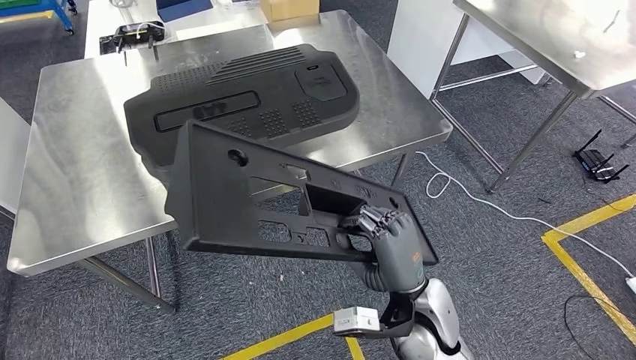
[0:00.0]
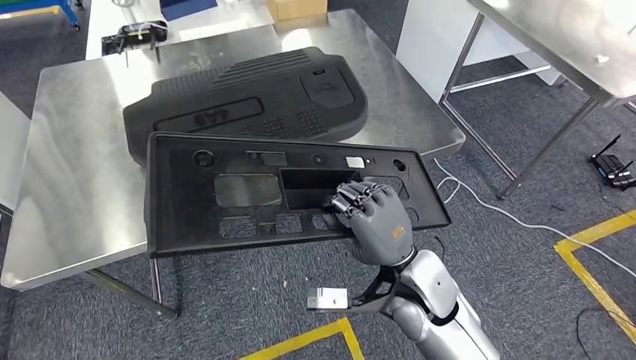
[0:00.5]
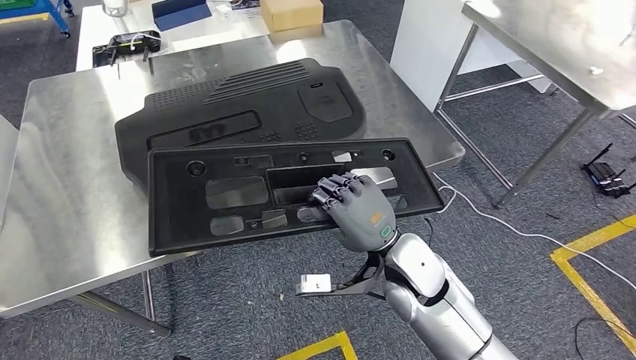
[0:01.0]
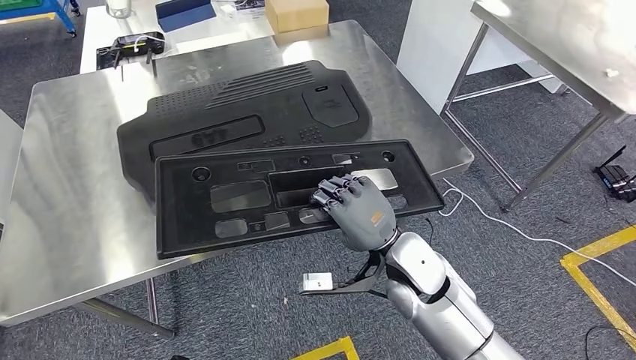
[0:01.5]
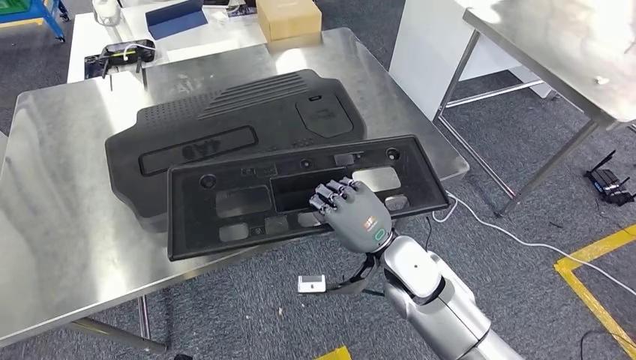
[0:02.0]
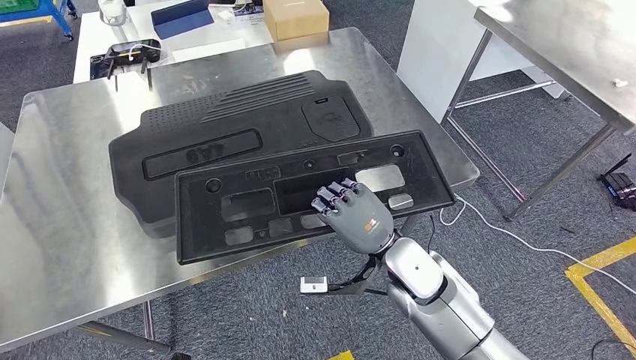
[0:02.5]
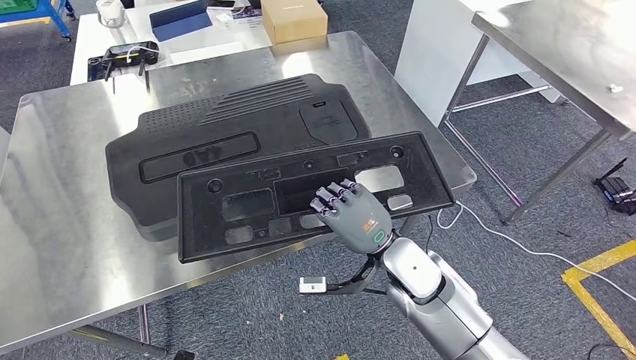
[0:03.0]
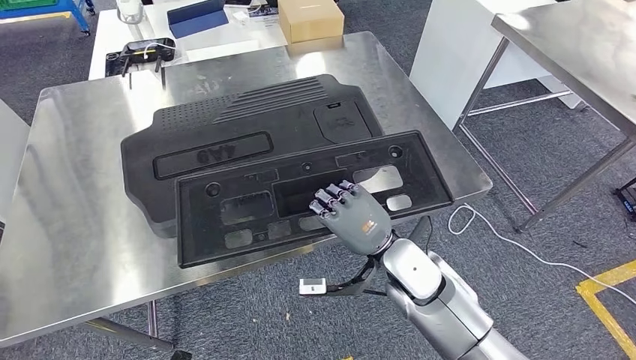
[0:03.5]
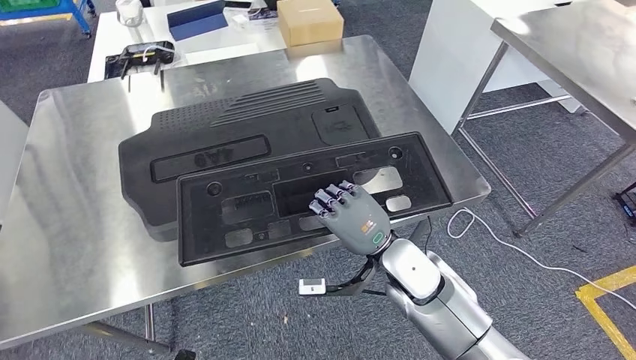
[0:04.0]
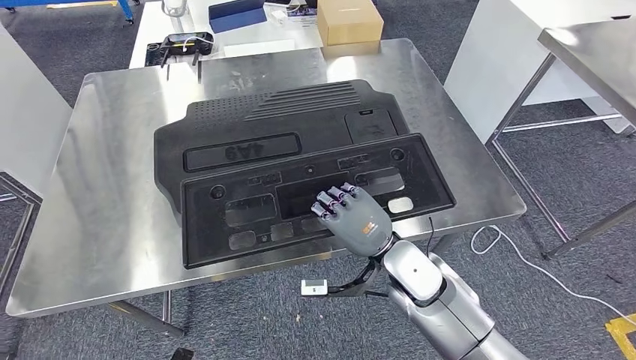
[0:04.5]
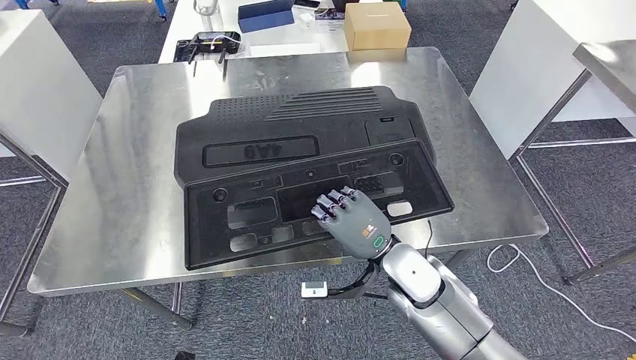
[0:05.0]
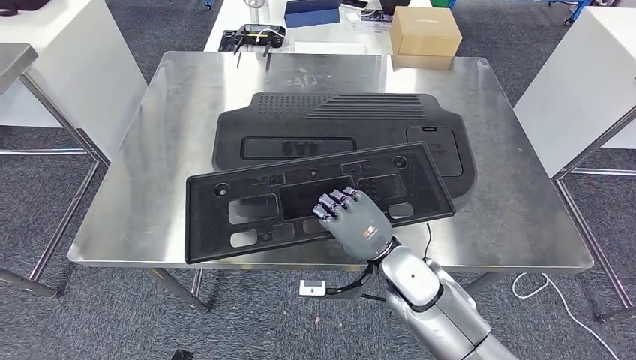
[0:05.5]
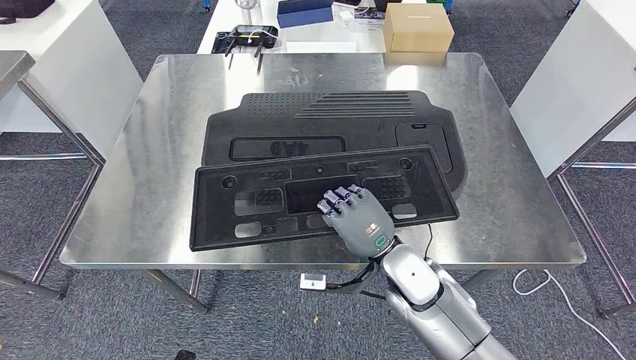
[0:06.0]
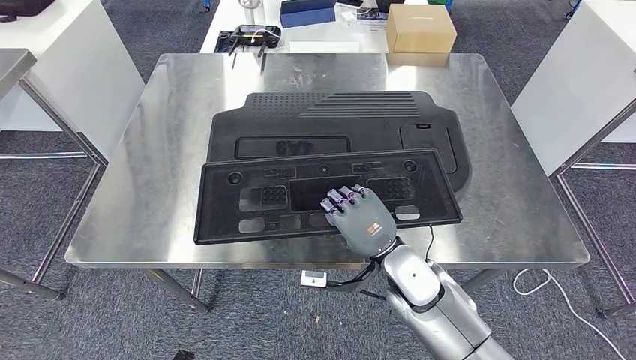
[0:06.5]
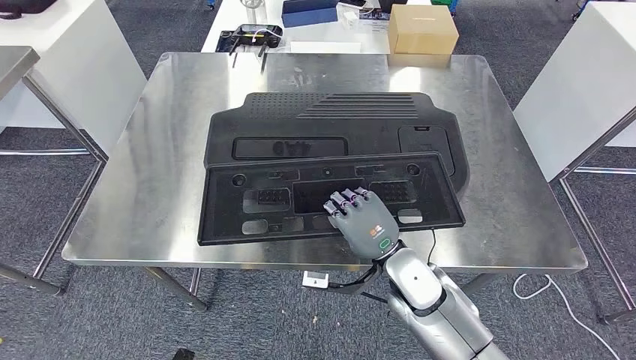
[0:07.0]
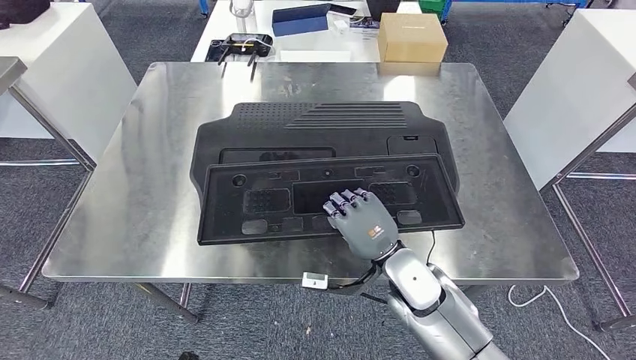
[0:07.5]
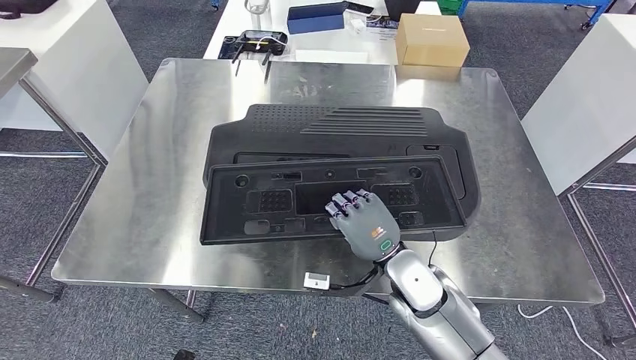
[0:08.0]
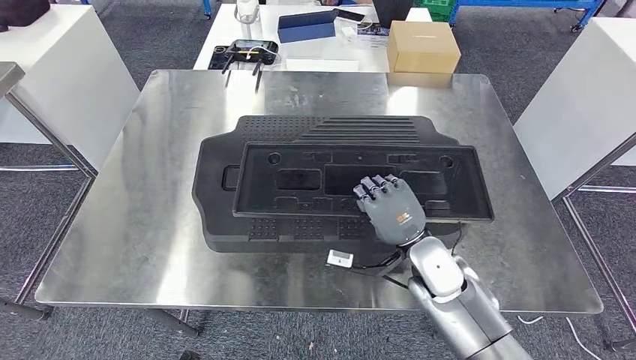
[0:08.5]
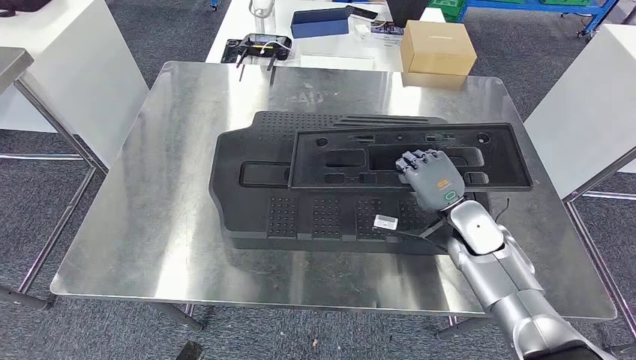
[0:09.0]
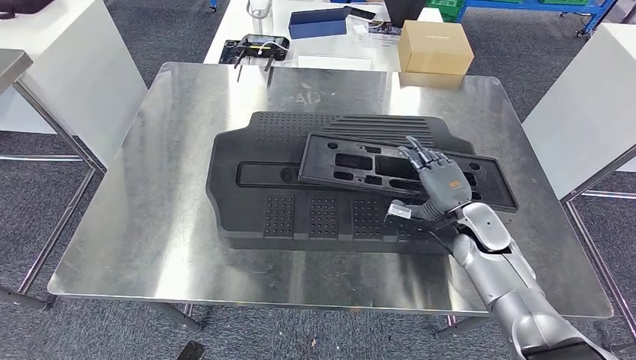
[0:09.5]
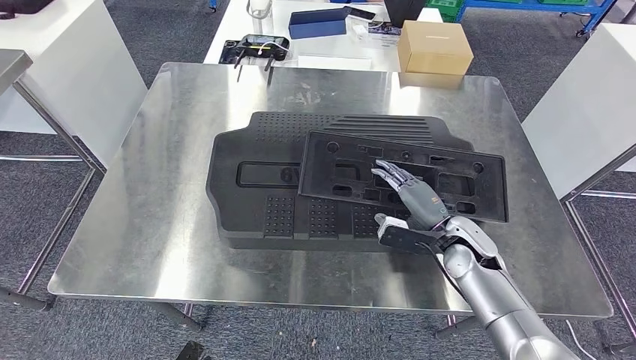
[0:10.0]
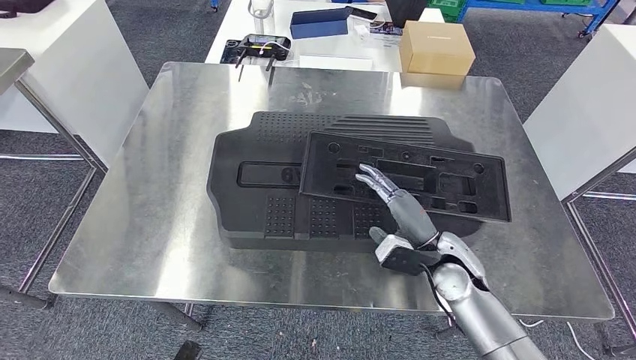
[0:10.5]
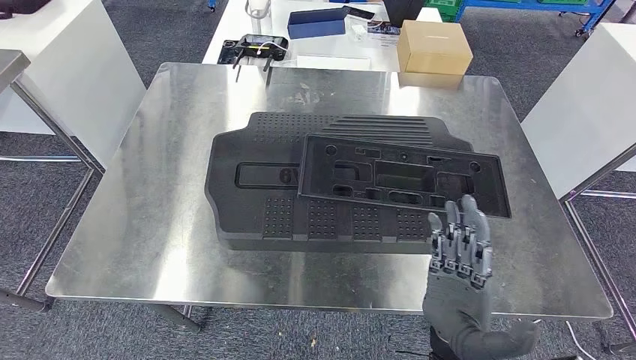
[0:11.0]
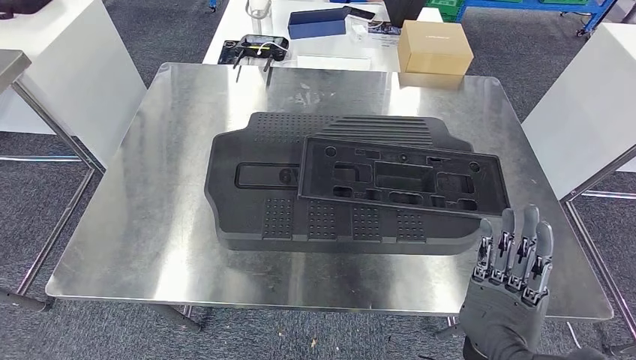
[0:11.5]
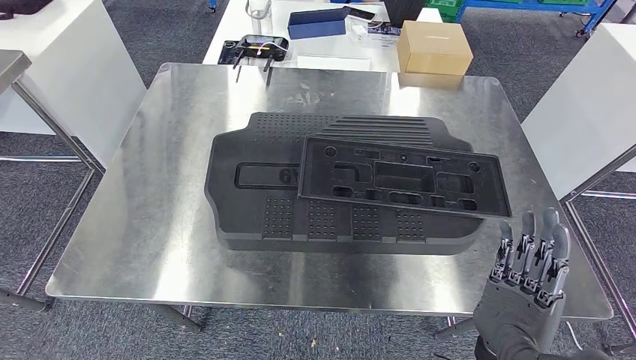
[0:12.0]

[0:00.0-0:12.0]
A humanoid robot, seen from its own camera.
Step, 0:00.0 to 0:11.5: Insert the large material into the corresponding slot on the workbench.
0:10.0 to 0:12.0: The left hand heads backward, covering about 5 cm, while the right hand shifts some 20 cm backward.

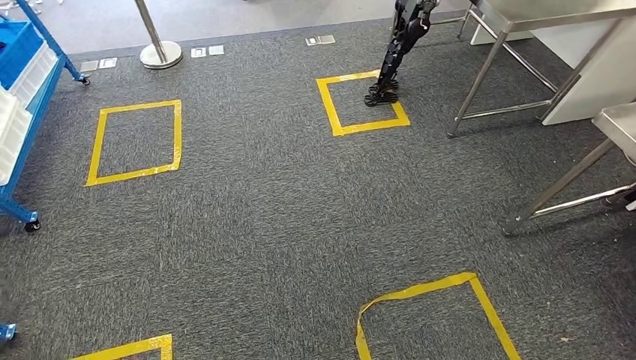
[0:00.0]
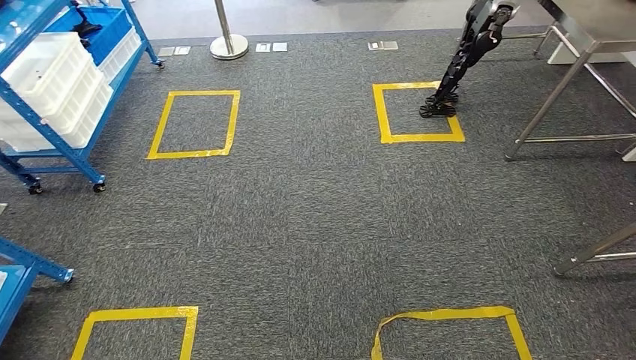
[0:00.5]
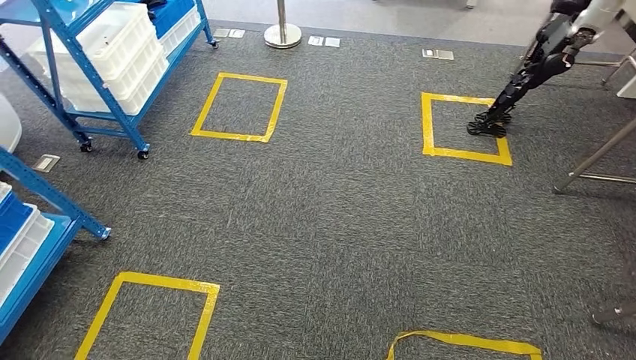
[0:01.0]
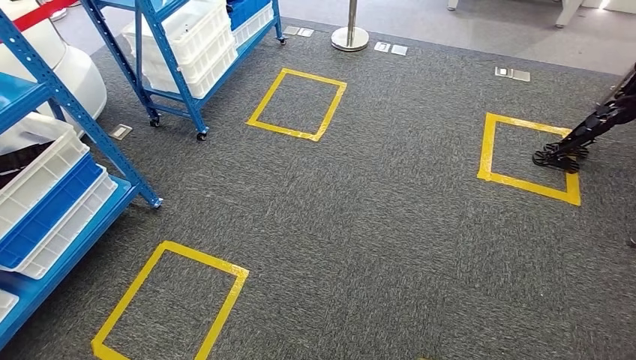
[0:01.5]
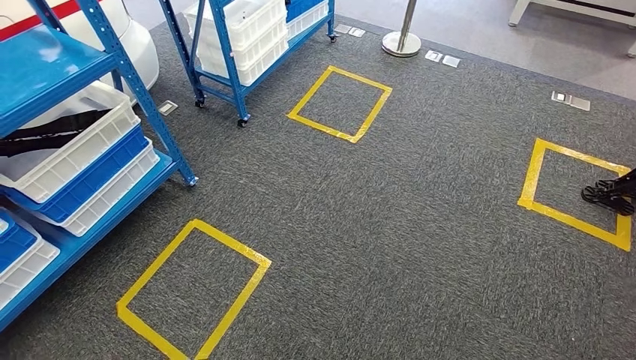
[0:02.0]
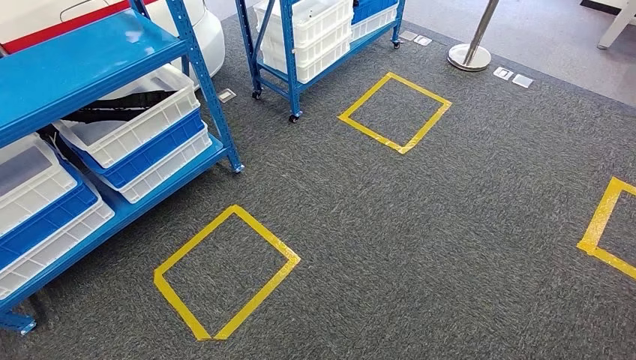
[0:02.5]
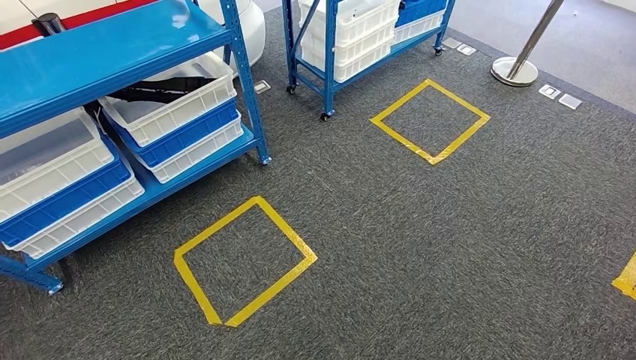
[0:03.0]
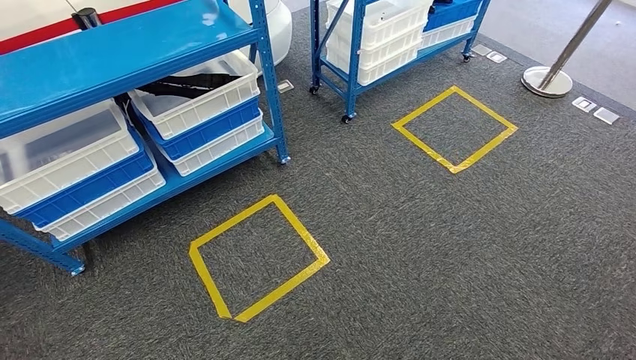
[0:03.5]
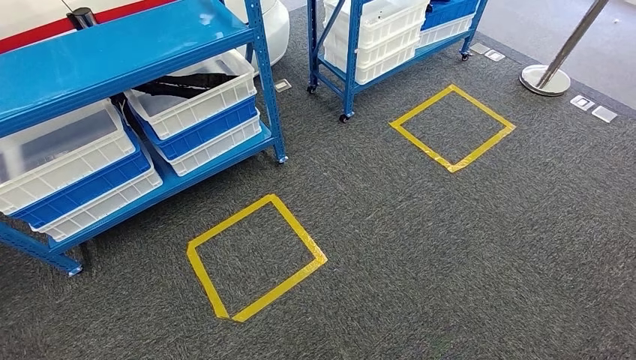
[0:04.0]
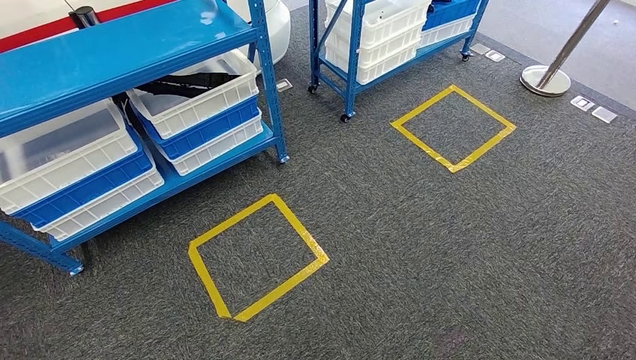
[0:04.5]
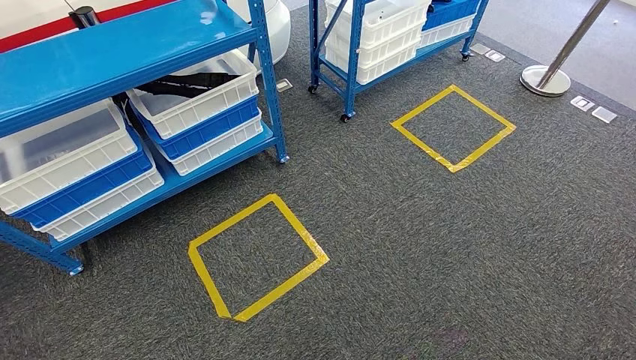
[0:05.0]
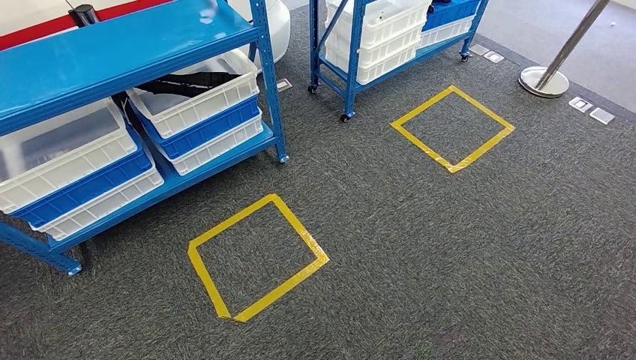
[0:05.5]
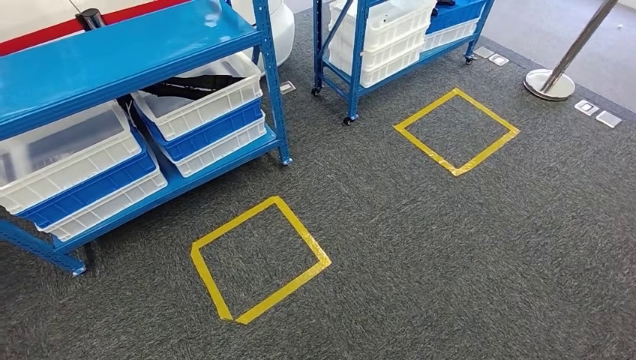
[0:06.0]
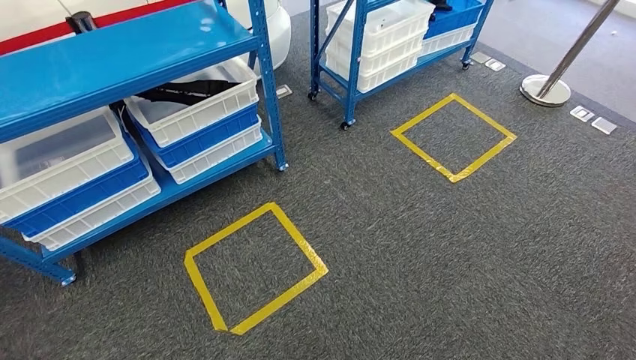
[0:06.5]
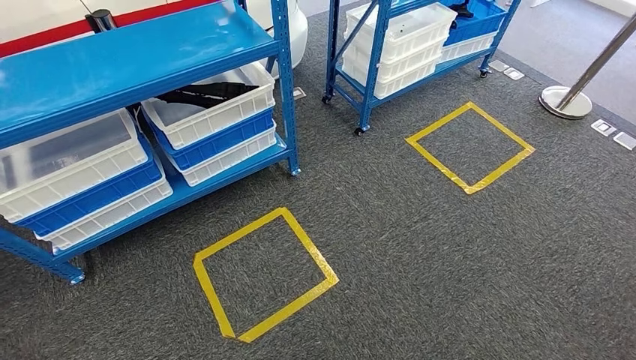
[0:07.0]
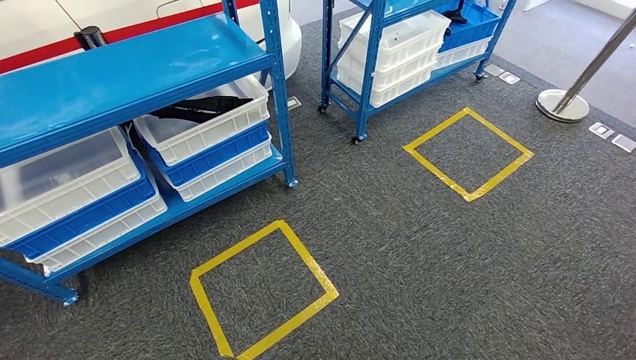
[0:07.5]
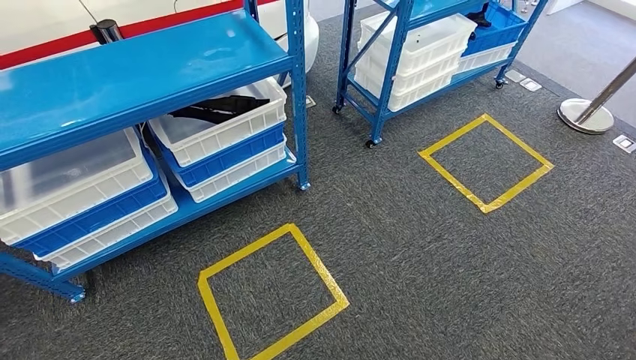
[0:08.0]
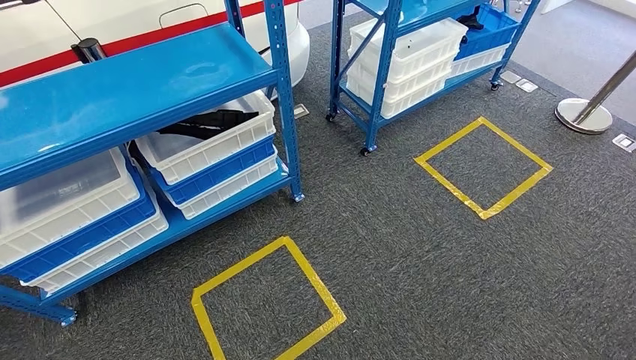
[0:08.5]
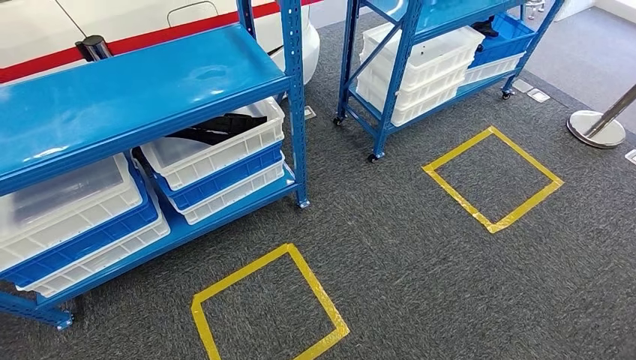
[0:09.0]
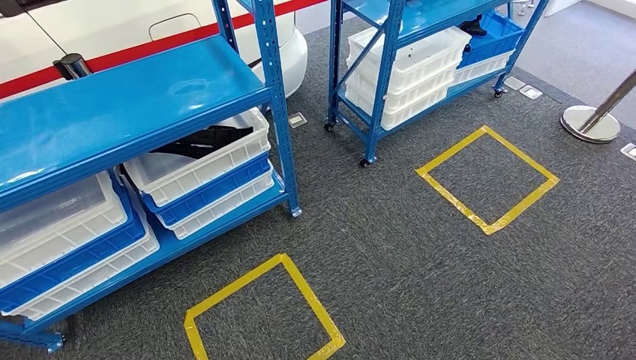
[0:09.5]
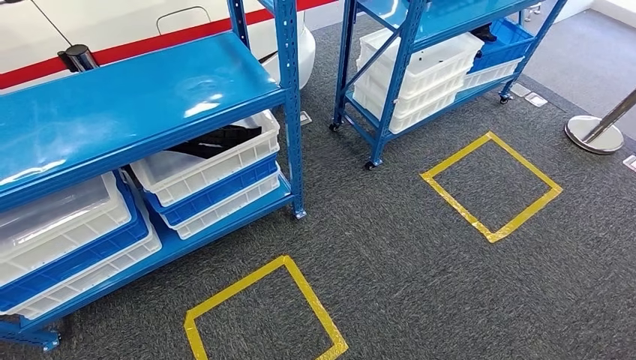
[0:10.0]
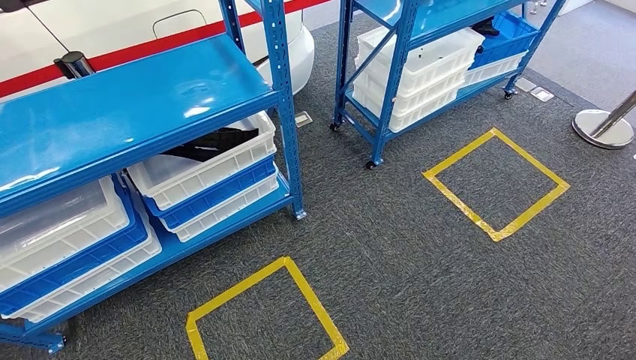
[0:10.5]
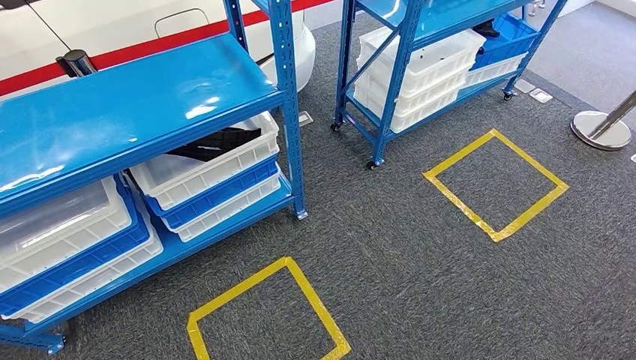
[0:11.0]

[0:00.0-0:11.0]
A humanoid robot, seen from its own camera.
0:03.5 to 0:05.5: Neither hand changes place.
